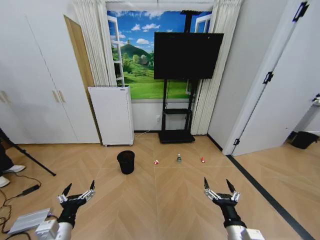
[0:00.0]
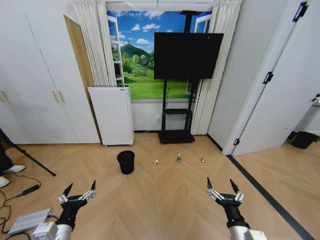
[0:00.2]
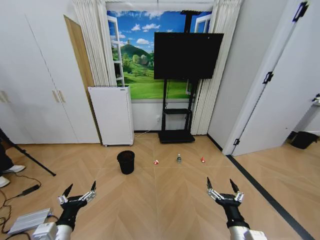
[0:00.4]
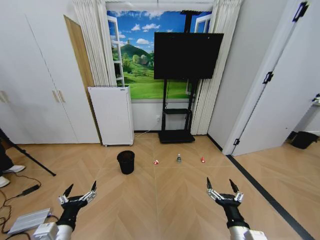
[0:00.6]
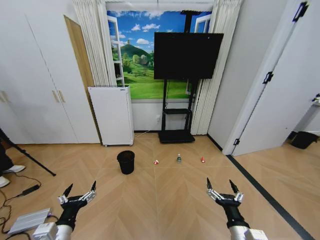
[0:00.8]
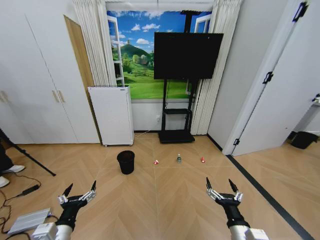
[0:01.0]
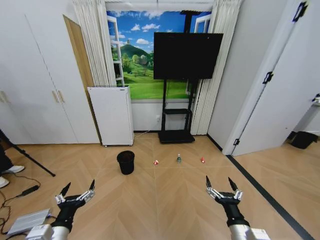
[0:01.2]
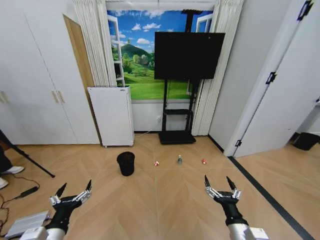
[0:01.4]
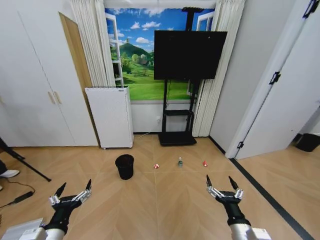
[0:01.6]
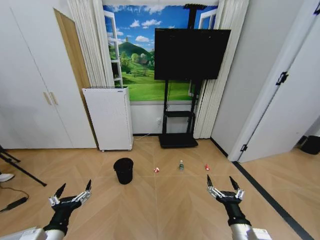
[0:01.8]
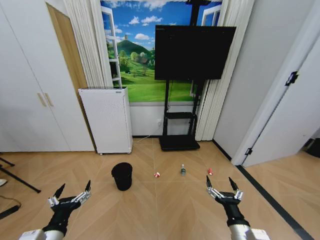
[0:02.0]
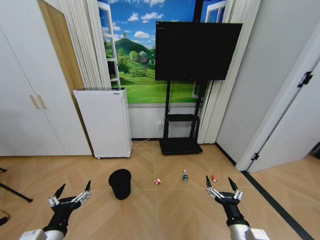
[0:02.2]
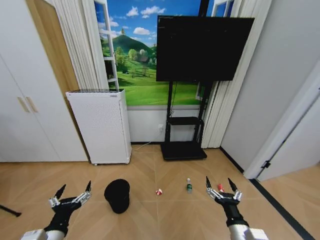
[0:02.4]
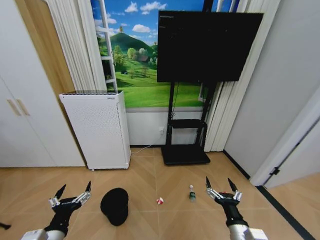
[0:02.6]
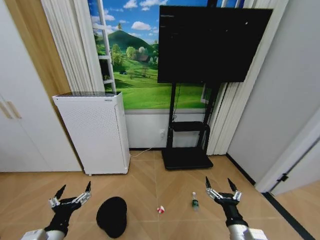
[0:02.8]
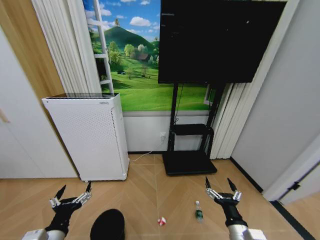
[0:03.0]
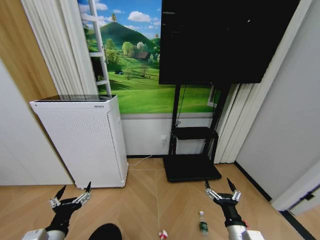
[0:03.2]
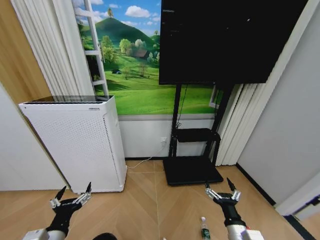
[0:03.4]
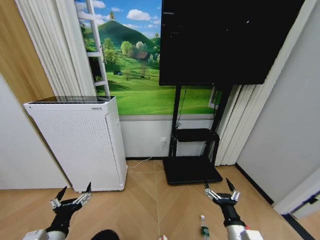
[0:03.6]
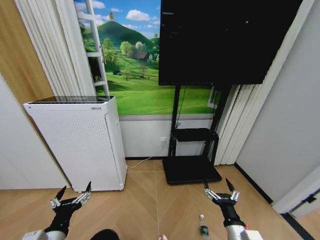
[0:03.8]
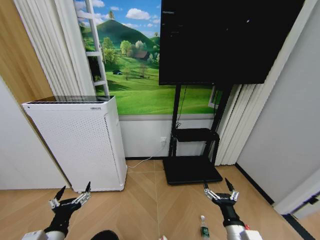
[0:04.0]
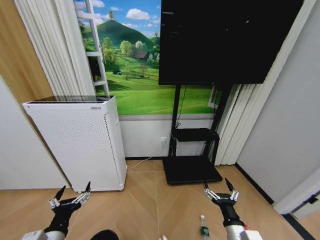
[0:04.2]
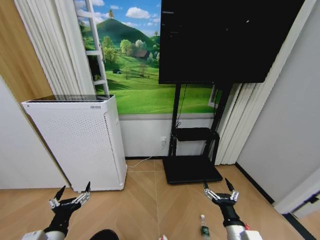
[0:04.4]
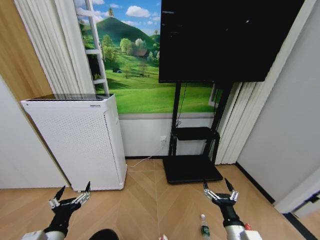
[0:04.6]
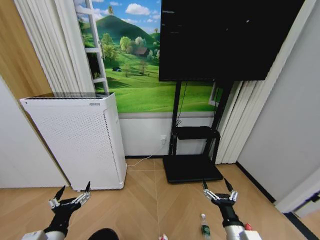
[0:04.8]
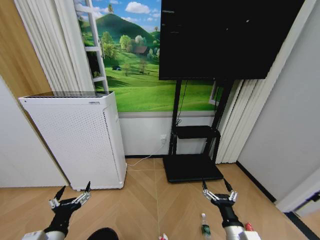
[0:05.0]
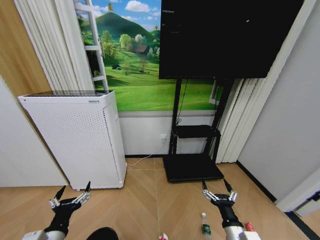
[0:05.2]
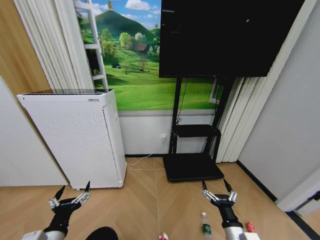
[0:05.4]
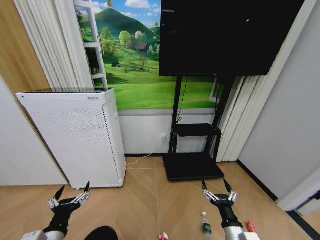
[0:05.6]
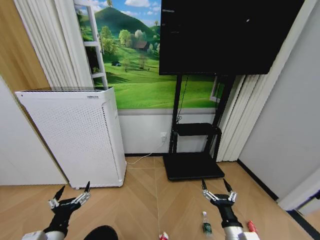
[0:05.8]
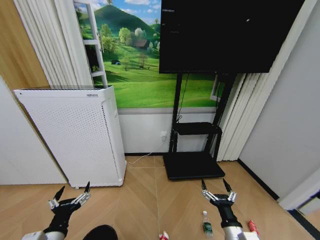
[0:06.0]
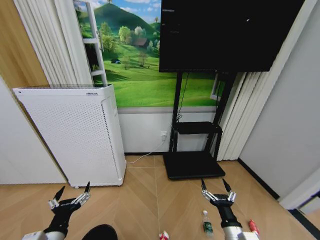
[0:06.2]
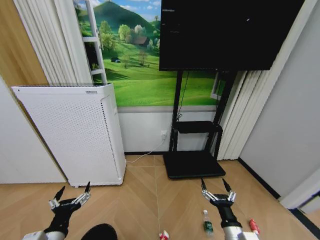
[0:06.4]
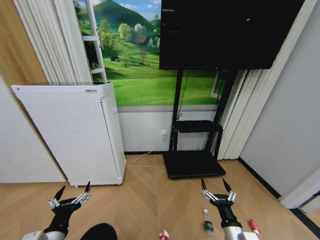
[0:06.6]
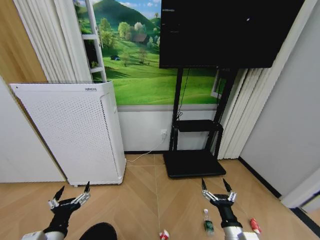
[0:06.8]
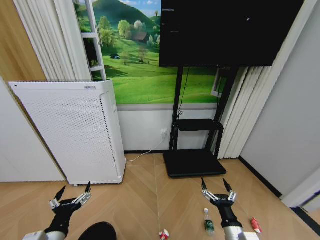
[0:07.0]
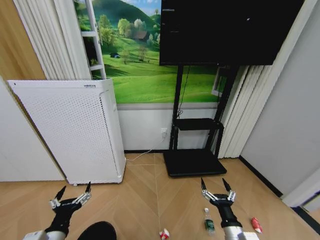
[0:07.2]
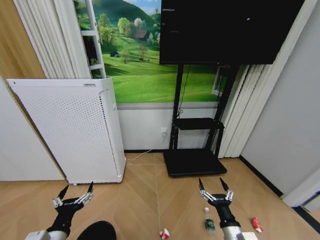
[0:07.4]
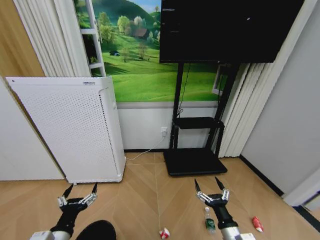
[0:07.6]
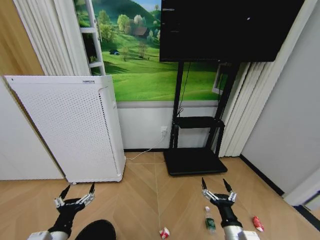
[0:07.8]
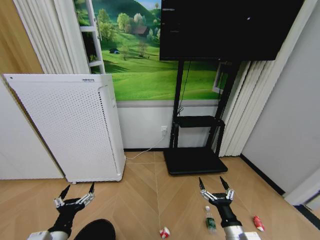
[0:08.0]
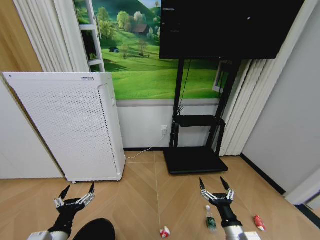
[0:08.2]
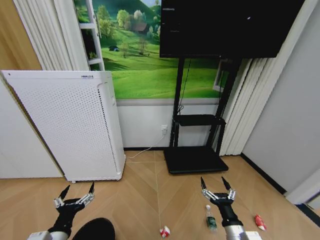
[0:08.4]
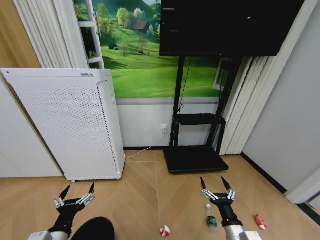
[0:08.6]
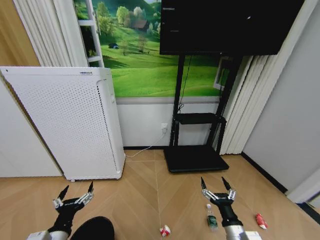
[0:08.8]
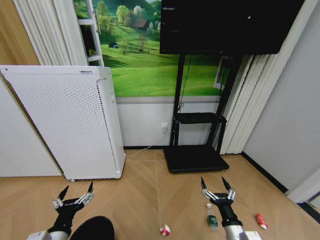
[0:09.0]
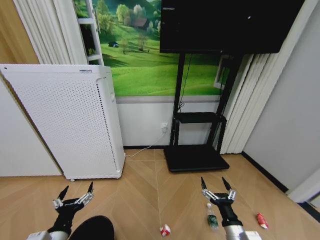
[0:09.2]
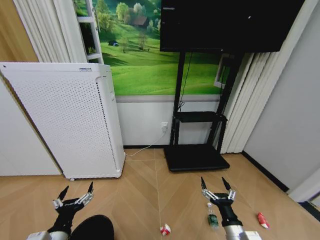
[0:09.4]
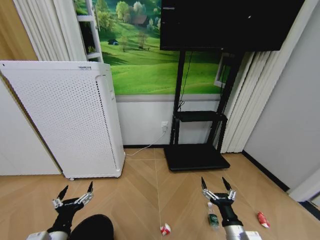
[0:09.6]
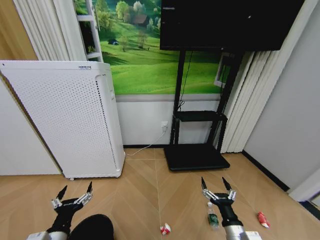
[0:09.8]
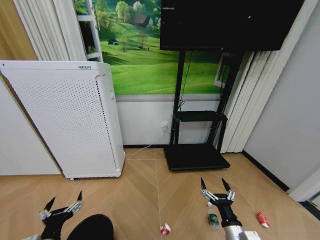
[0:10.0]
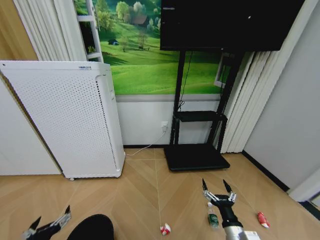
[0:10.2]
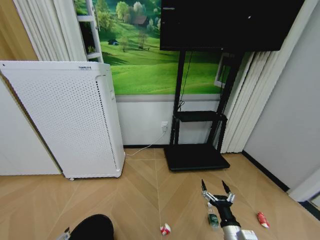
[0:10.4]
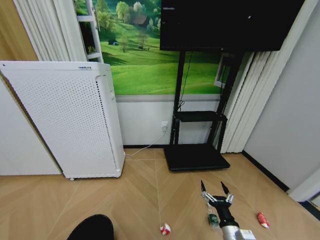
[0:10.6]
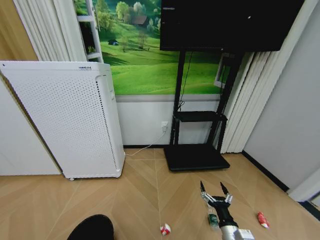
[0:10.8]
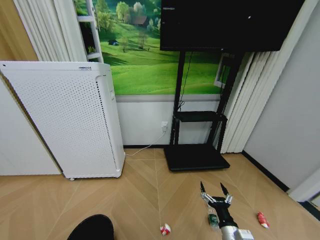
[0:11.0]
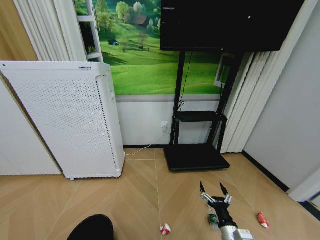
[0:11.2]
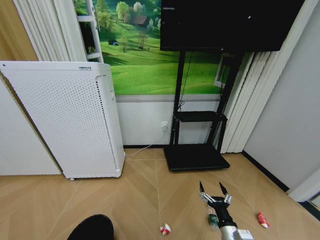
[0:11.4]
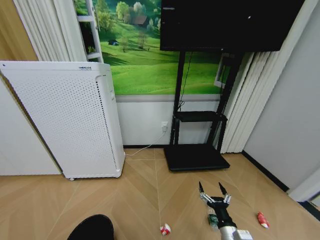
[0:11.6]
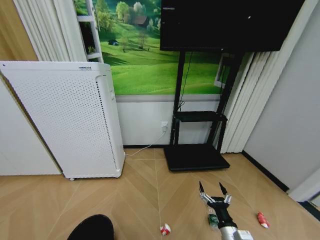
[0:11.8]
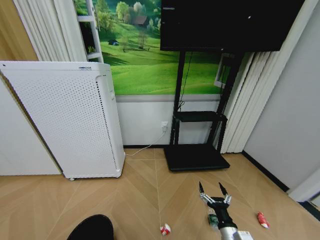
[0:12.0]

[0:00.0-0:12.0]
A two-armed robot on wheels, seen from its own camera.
Task of the whole recording: Pick up the trash bin and place the garbage on the floor into it.
0:04.4 to 0:06.0: Both grippers stay about where they are.
0:06.0 to 0:09.0: The grippers stay close to where they were, moving slightly.
0:09.0 to 0:10.4: The left gripper ends up approximately 5 cm from where it was.

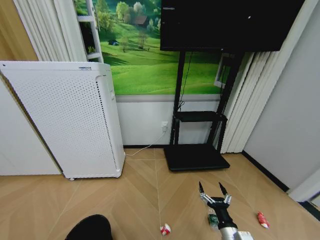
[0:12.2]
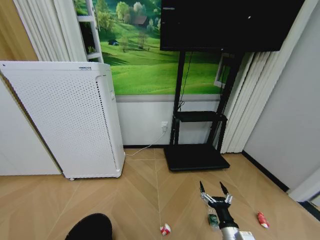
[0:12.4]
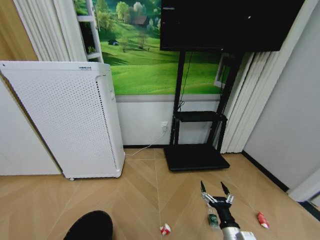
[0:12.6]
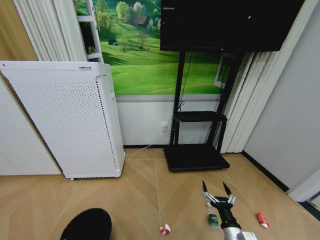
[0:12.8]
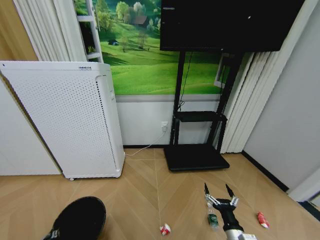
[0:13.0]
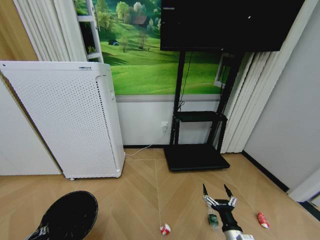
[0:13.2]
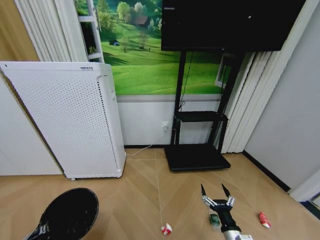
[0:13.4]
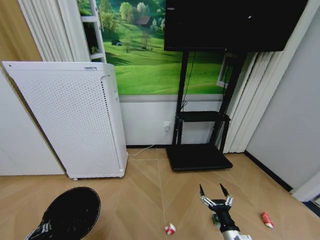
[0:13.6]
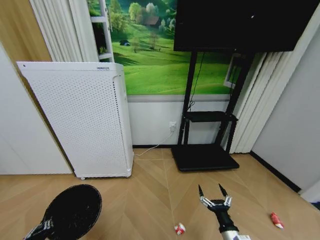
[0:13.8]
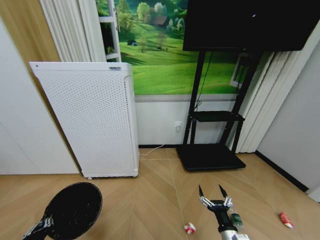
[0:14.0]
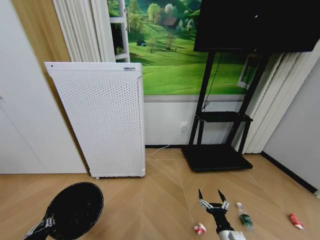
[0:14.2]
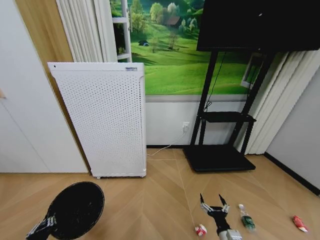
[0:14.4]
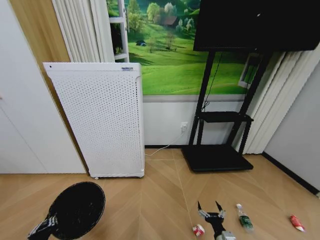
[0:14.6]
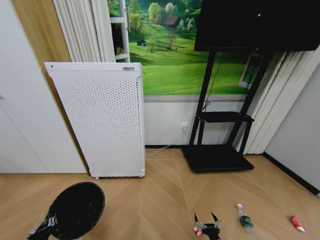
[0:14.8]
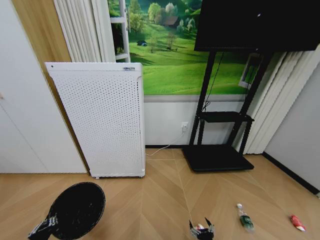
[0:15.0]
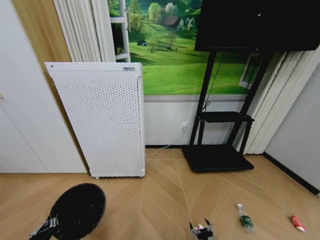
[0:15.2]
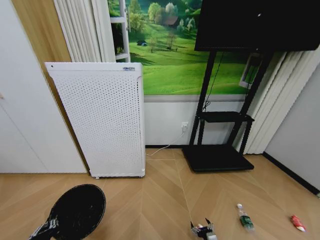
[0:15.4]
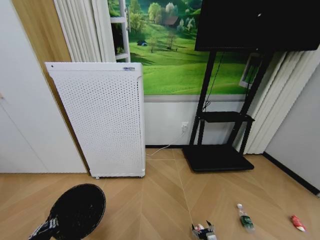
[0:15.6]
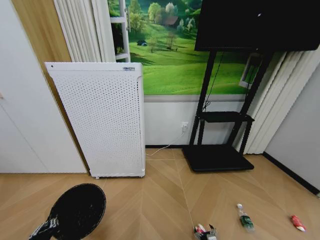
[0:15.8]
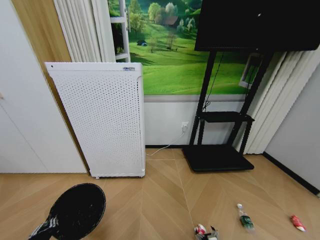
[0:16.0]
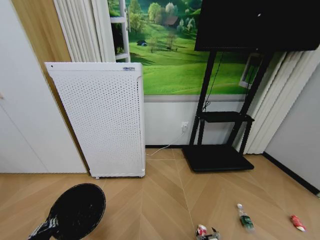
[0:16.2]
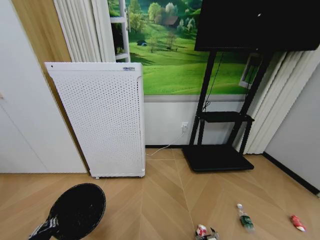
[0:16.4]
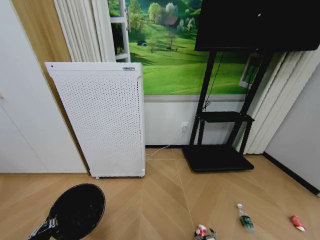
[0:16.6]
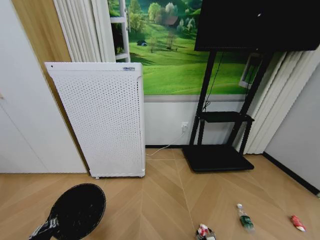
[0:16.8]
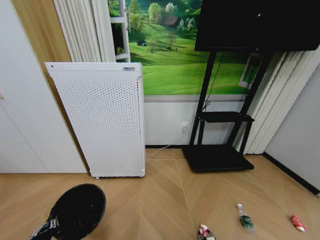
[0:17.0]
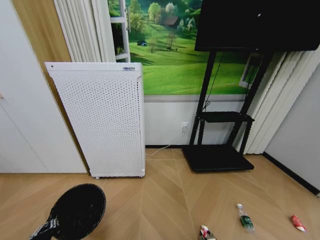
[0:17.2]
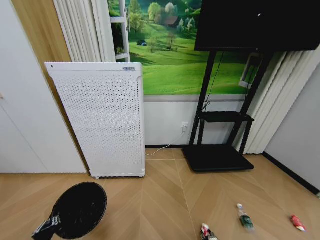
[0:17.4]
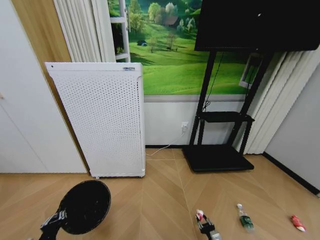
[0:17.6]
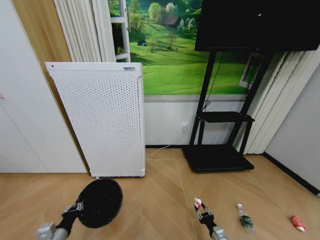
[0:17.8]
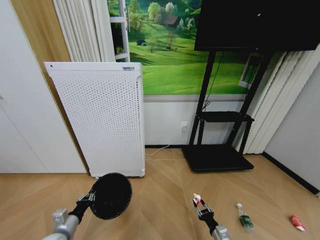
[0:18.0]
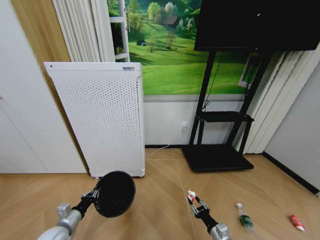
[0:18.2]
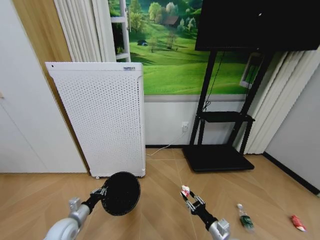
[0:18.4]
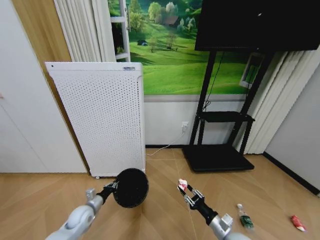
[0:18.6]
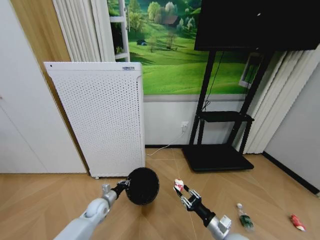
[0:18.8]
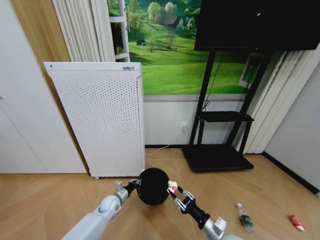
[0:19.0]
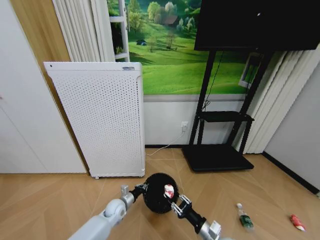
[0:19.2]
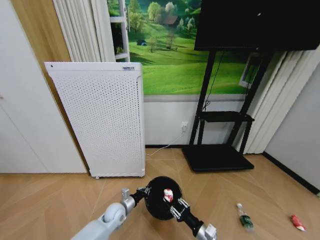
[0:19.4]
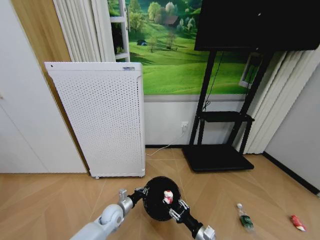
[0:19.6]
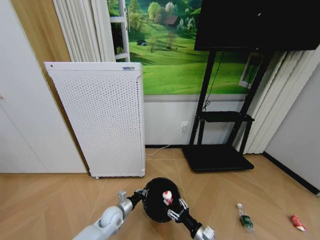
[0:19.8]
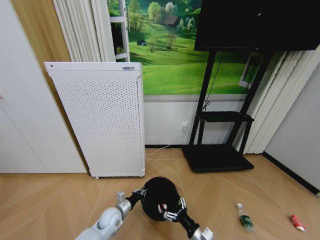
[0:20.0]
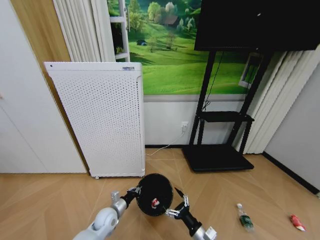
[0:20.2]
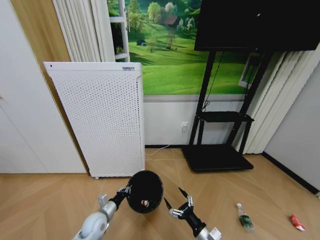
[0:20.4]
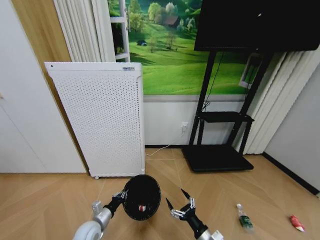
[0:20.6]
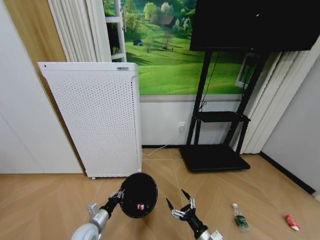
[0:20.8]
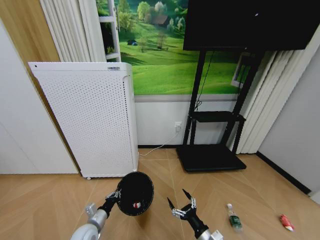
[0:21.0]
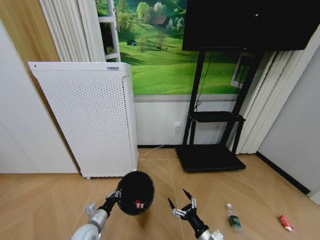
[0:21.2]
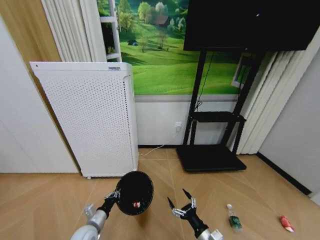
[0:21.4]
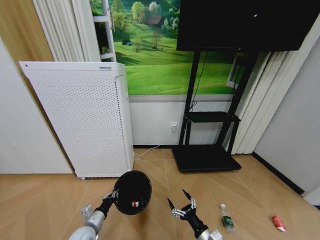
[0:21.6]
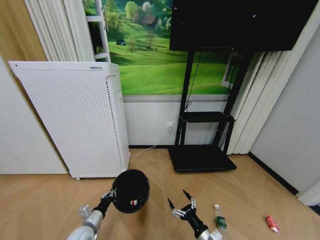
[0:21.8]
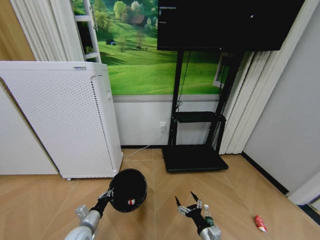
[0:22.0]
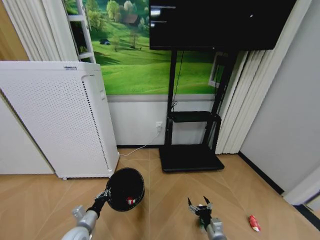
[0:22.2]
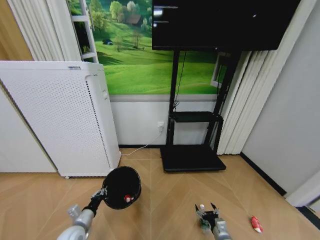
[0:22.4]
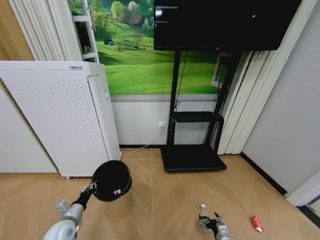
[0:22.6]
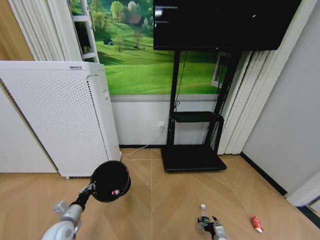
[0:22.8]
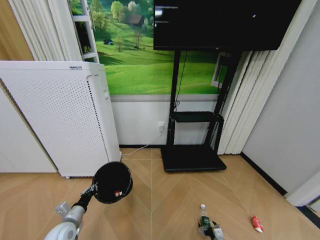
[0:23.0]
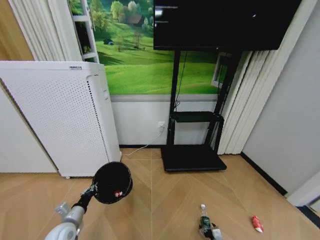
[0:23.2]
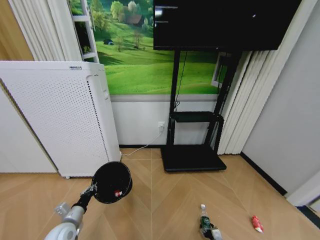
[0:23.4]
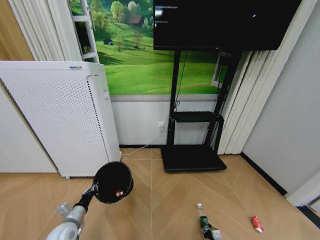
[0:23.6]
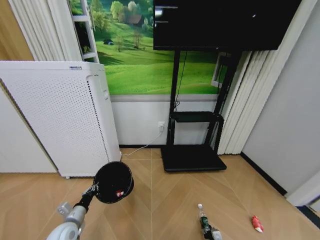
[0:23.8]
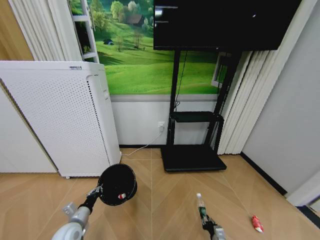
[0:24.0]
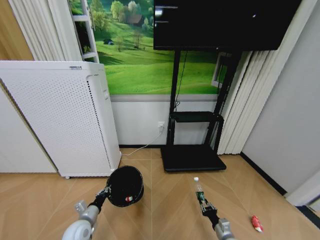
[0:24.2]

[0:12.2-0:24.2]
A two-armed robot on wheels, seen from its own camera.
Task of the whole recording: Pick up the trash bin and place the garbage on the floor into it.
0:13.8 to 0:15.2: The right gripper shifts some 15 cm downward.
0:16.6 to 0:18.2: The right gripper moves upward, some 15 cm, and closes up; the left gripper is displaced forward by some 15 cm.
0:18.2 to 0:19.8: The right gripper heads to the left, covering about 5 cm. The left gripper shifts about 20 cm to the right, forward and downward.
0:19.8 to 0:21.2: The left gripper goes about 10 cm to the left and backward, while the right gripper opens its fingers.
0:21.2 to 0:22.6: The left gripper shifts approximately 10 cm to the left; the right gripper moves downward and to the right, some 15 cm.
0:22.6 to 0:24.2: The right gripper reaches approximately 10 cm downward, then returns, and closes up; the left gripper changes place by roughly 5 cm.
